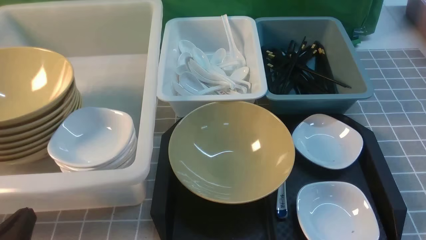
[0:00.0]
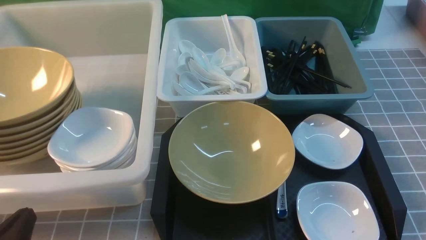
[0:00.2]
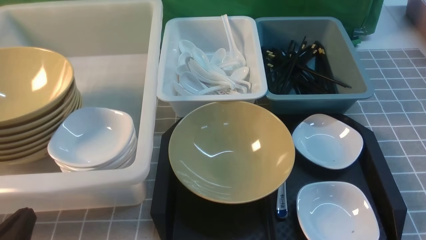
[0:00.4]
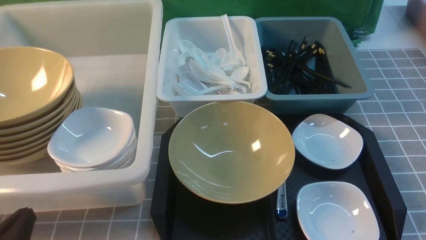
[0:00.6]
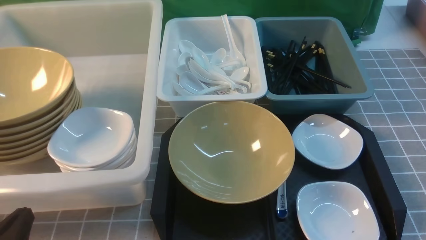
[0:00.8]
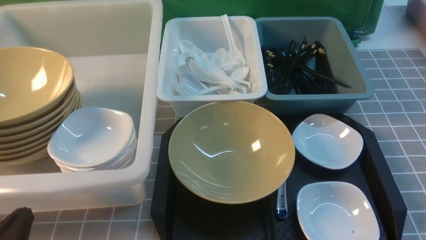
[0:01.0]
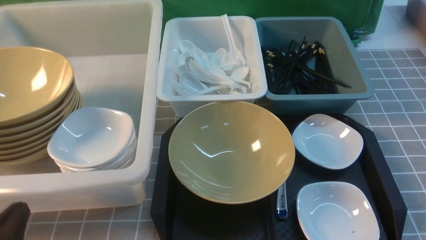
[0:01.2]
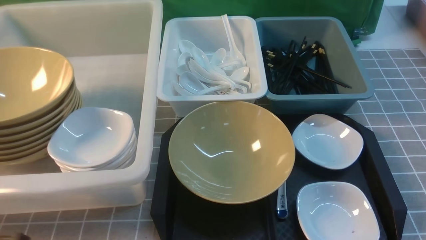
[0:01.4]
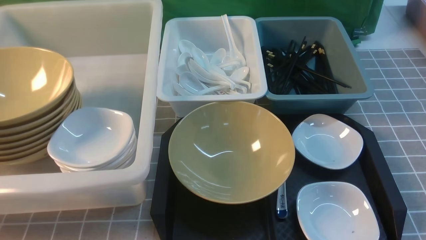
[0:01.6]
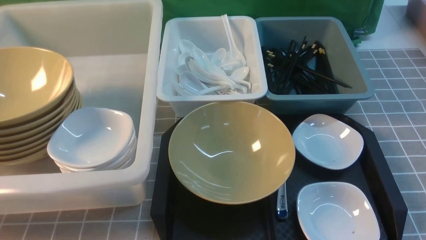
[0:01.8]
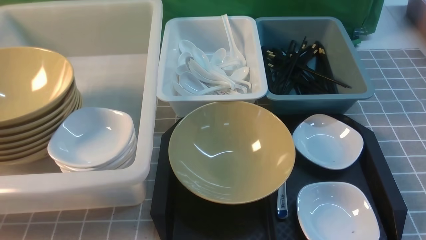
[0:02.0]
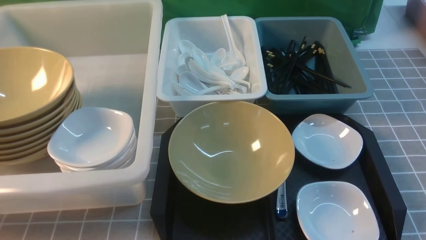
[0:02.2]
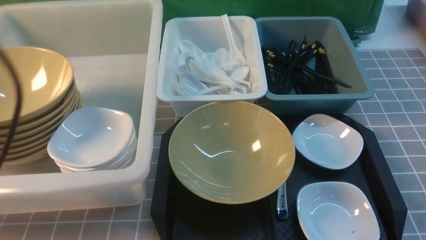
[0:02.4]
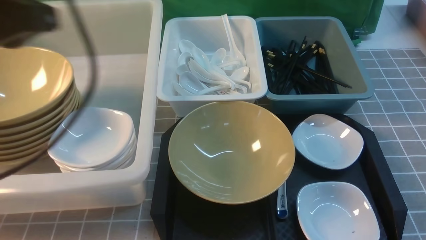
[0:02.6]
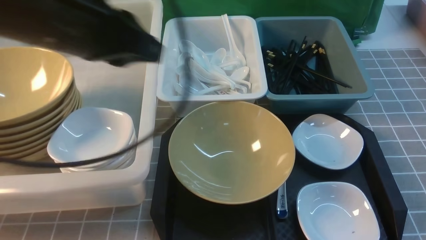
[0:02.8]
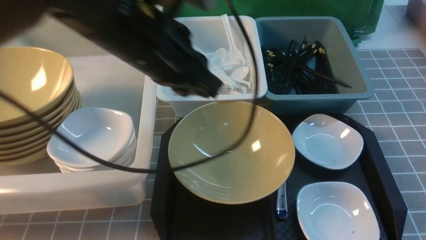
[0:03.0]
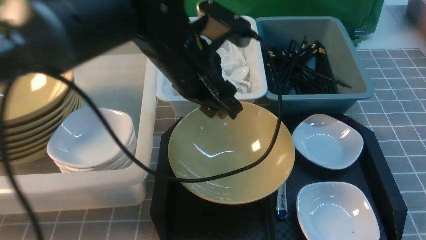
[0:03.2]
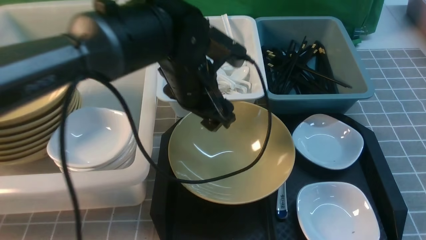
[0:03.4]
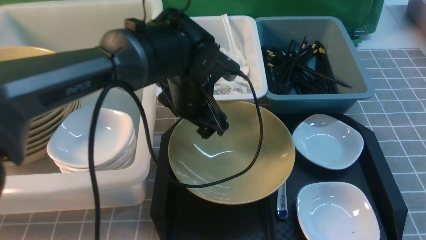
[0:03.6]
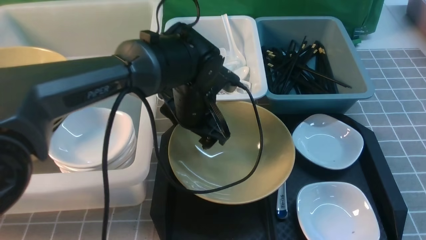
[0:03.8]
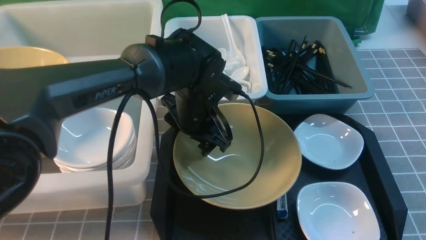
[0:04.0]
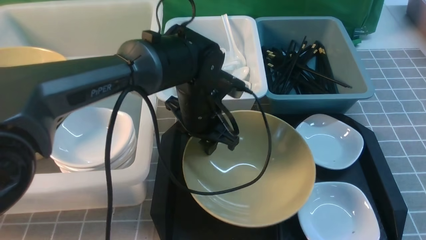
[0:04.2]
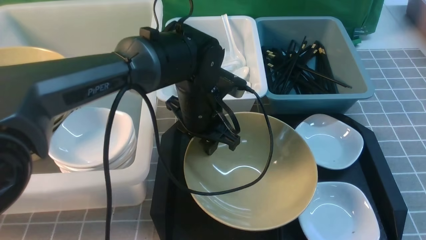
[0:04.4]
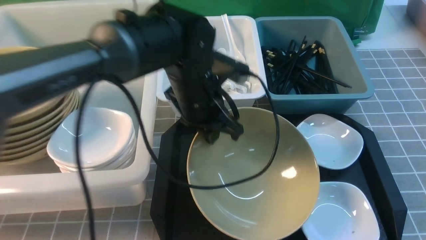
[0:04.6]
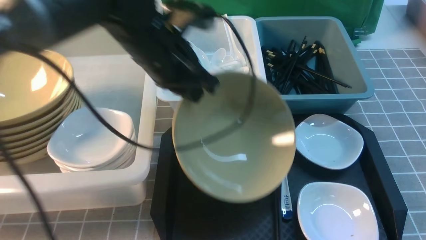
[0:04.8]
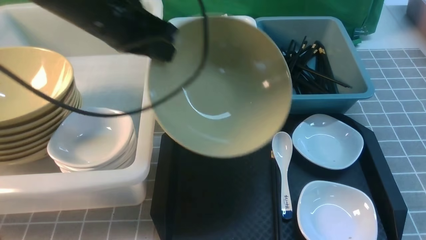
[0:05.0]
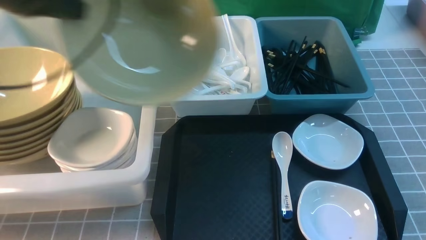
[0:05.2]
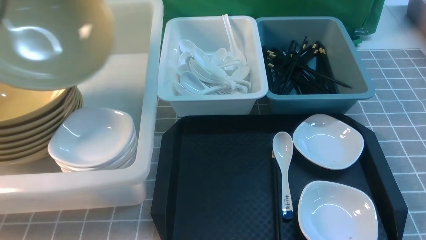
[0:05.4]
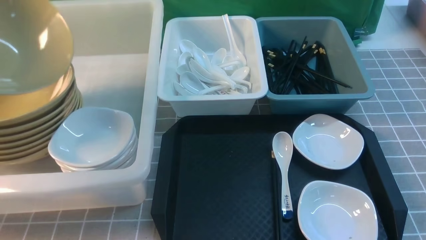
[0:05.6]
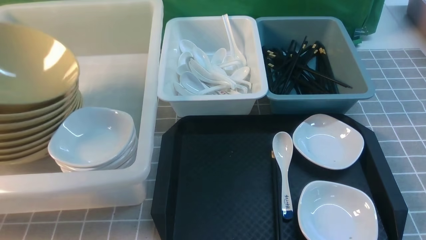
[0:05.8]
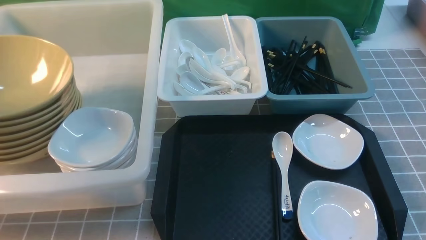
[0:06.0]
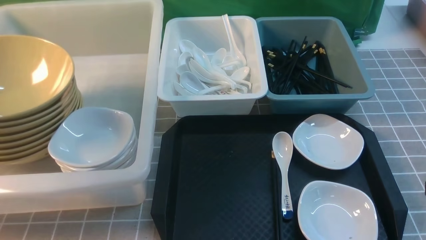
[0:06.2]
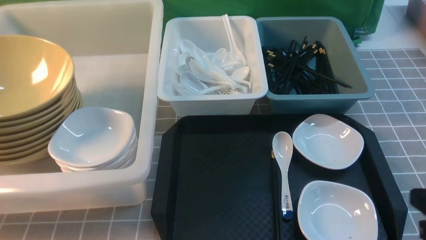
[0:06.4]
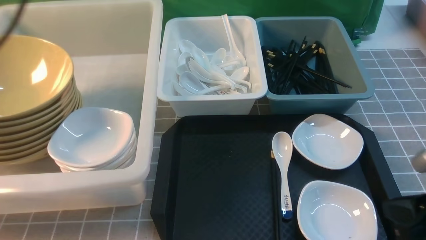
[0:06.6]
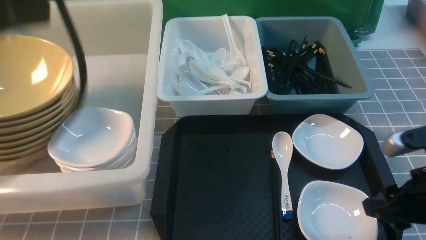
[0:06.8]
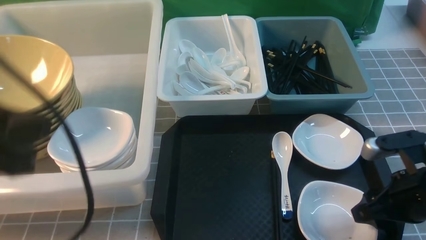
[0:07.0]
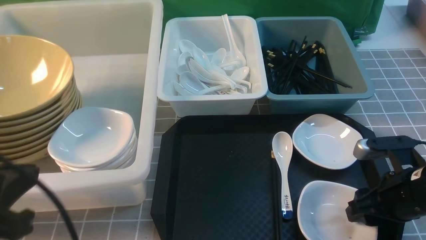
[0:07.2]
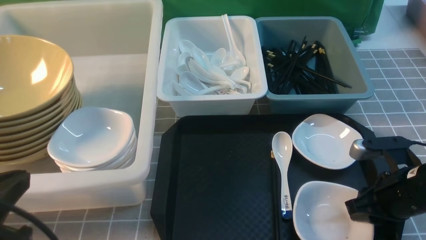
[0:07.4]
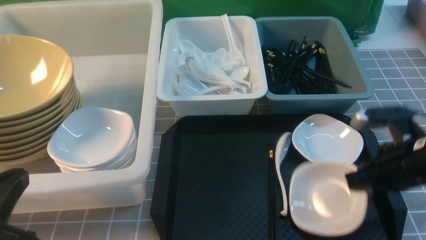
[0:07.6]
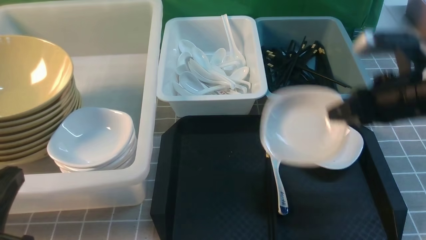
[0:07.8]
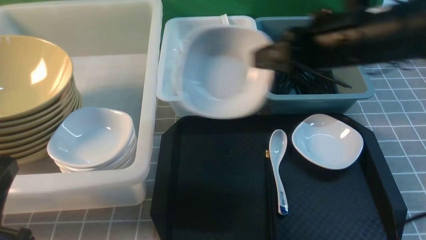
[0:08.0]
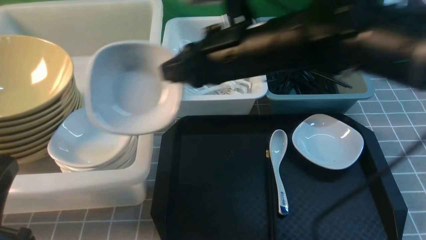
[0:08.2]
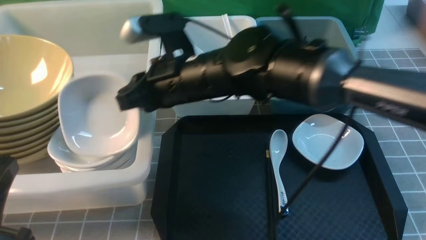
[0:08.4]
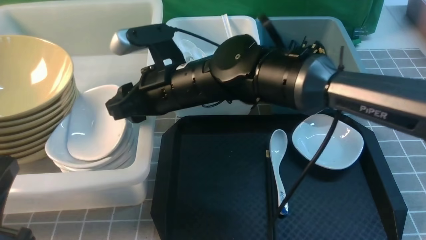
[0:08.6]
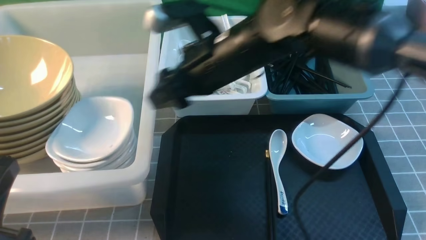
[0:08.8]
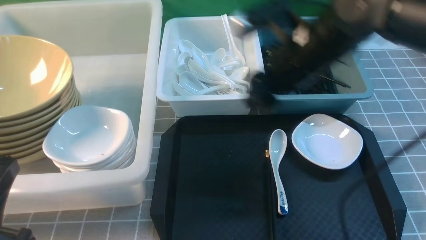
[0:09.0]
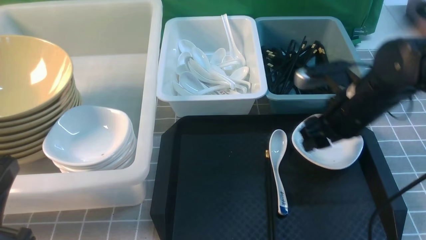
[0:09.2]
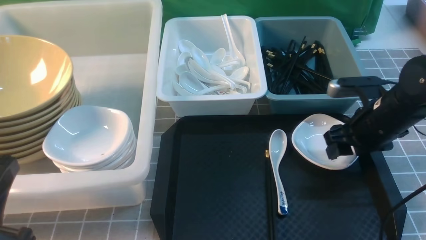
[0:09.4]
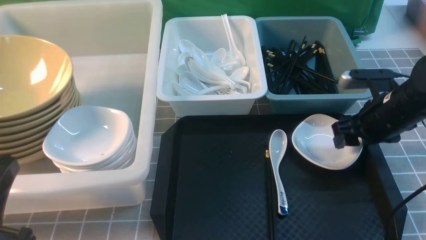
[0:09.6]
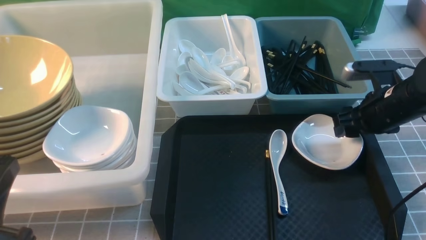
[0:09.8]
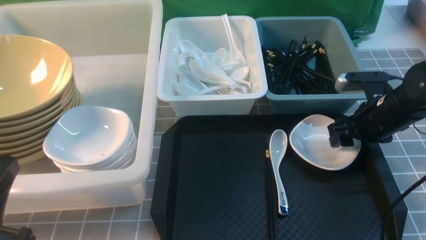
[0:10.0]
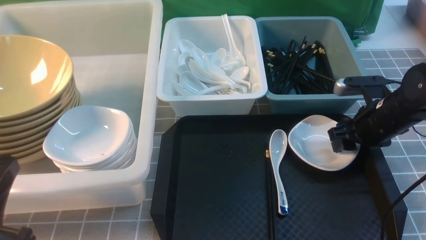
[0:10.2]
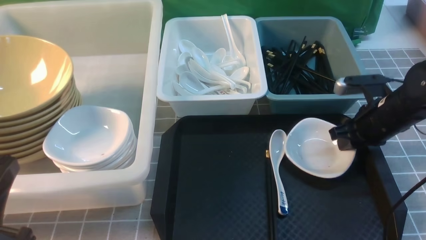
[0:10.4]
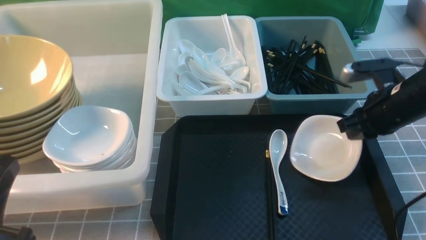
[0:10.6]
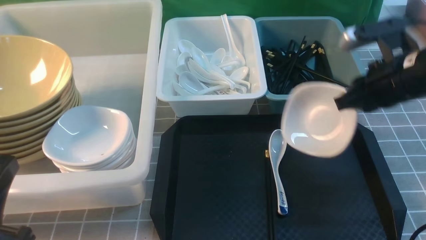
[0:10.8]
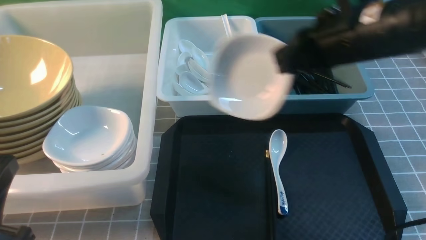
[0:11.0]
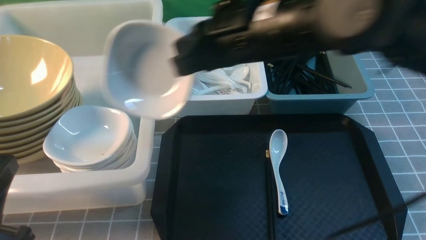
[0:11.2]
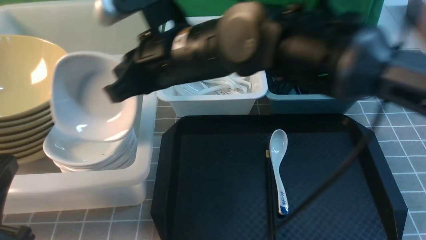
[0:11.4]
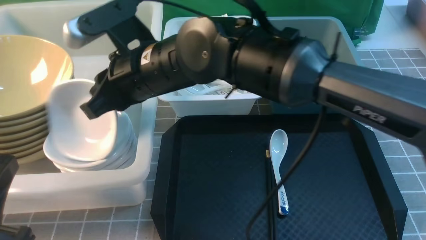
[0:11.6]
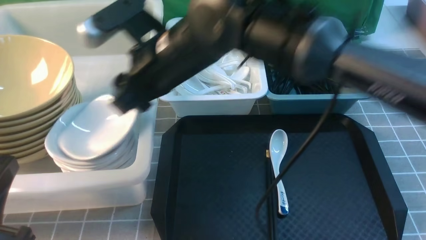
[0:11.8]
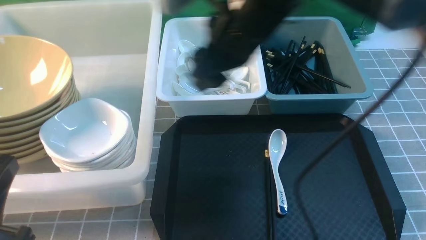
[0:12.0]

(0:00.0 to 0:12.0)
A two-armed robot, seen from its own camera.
Task of the whole recording: on grey table put chopsticks spoon bowls plates into blue grey white boxes.
Step, 0:00.0 - 0:04.6: use the left arm to grab the yellow noodle bowl on the left.
Step, 0:04.8 - 0:06.0: use the left arm to put the noodle bowl into the large storage box on the left.
Step, 0:06.2 - 0:07.8: use the right arm to grab the plate.
Step, 0:08.0 - 0:08.8: use the right arm to put the plate into the large storage box on the left.
Step, 0:09.0 - 0:10.6: use the right arm to grab the plate.
Step, 0:10.8 - 0:11.8: use the right arm to put the plate into the large storage box on the left.
0:01.6 - 0:03.0: The right gripper moves forward, roughly 5 cm, reaches some 10 cm upward, then returns, and closes its fingers, while the left gripper is displaced forward, upward and to the right by about 30 cm.
0:03.0 - 0:04.4: The left gripper moves downward, to the right and forward, some 20 cm, and opens, then closes again.
0:04.4 - 0:06.0: The left gripper shifts approximately 40 cm to the left, and closes and opens again.
0:06.0 - 0:07.6: The left gripper moves backward and to the right, roughly 30 cm, and closes up, while the right gripper goes roughly 15 cm forward and downward, and opens, then closes once more.
0:07.6 - 0:09.0: The right gripper travels to the left, forward and upward by roughly 25 cm, and opens its fingers.
0:09.0 - 0:10.4: The right gripper is displaced to the right and downward by approximately 25 cm, and closes its fingers.
0:10.4 - 0:12.0: The right gripper shifts some 30 cm to the left and upward, and closes and opens again.

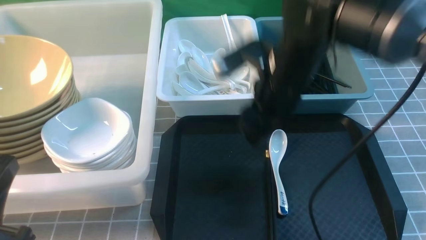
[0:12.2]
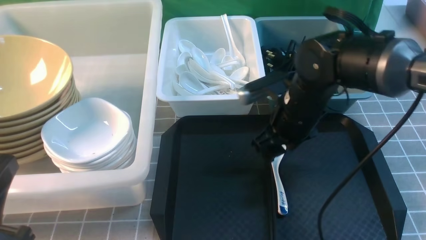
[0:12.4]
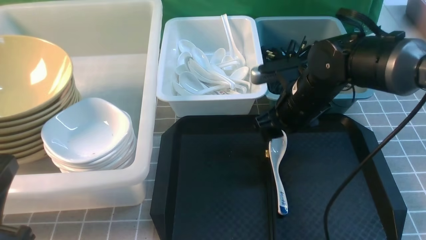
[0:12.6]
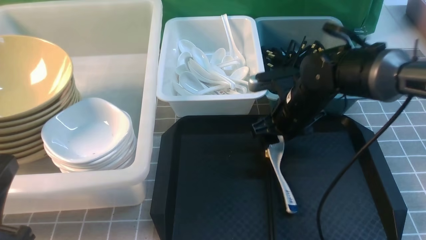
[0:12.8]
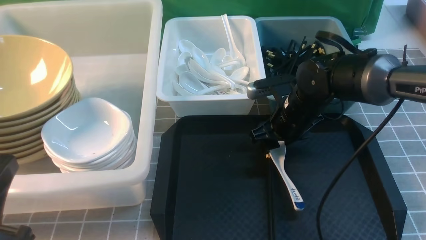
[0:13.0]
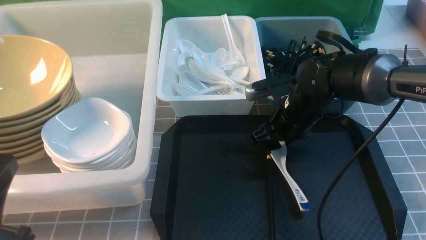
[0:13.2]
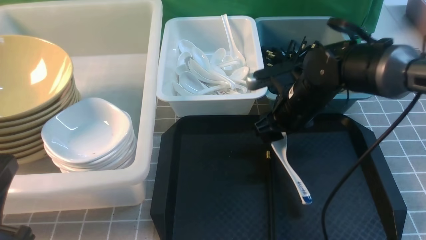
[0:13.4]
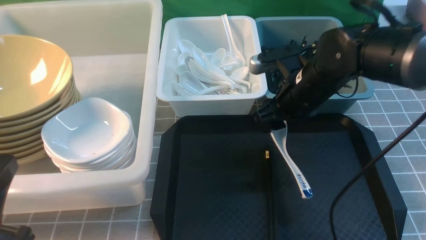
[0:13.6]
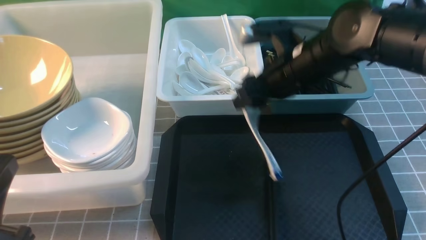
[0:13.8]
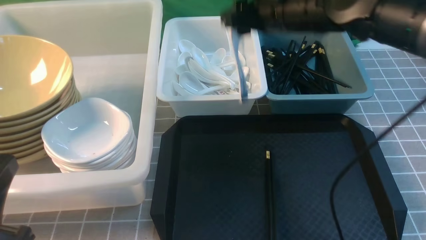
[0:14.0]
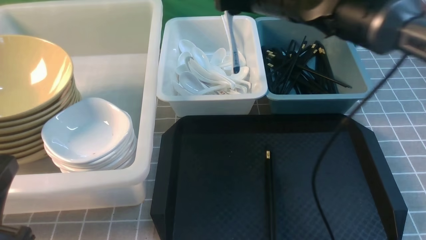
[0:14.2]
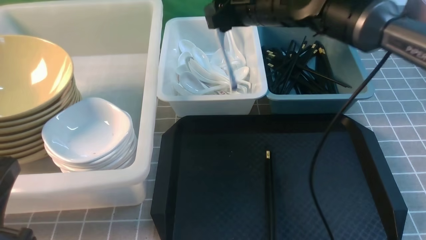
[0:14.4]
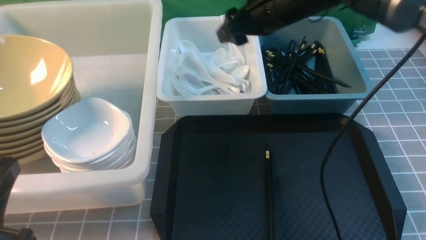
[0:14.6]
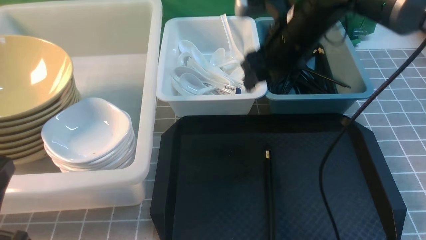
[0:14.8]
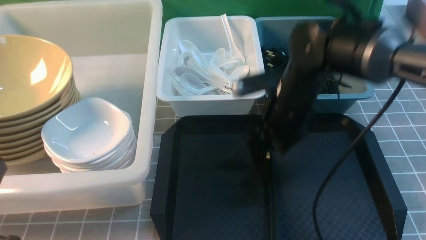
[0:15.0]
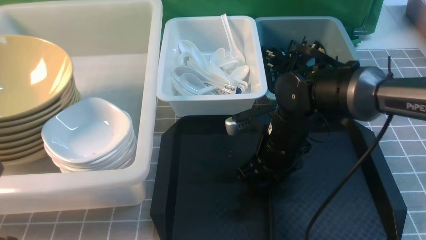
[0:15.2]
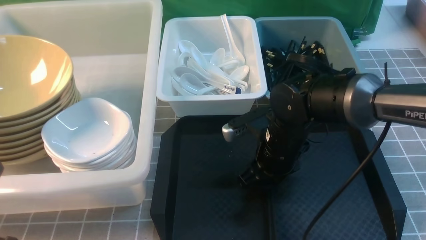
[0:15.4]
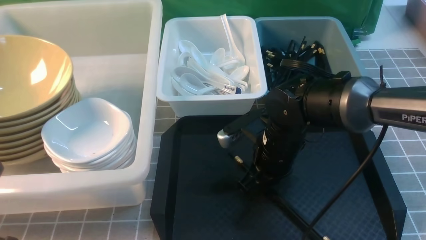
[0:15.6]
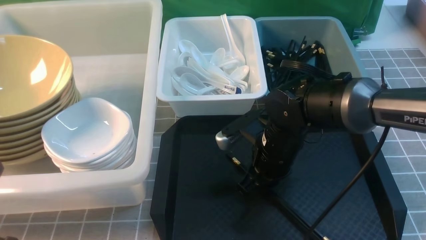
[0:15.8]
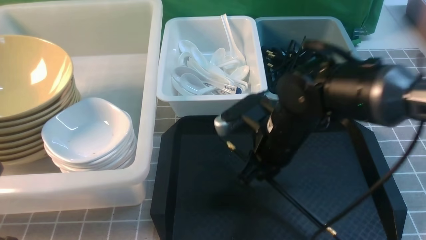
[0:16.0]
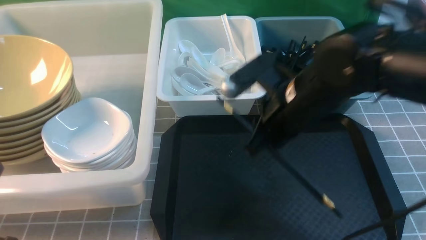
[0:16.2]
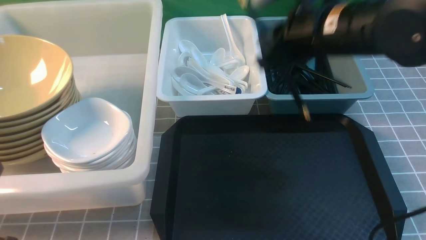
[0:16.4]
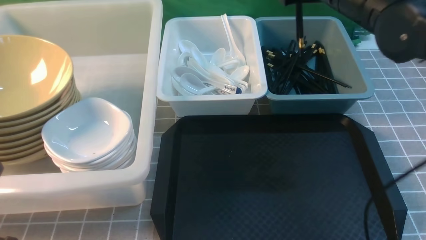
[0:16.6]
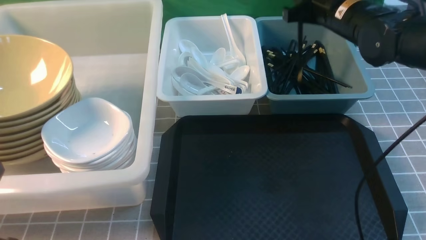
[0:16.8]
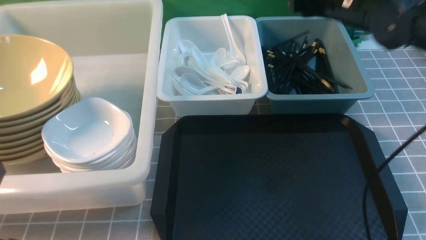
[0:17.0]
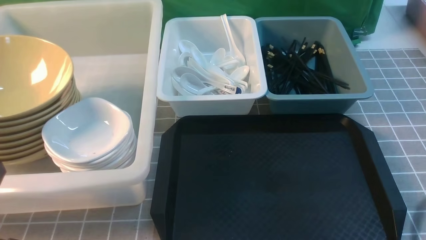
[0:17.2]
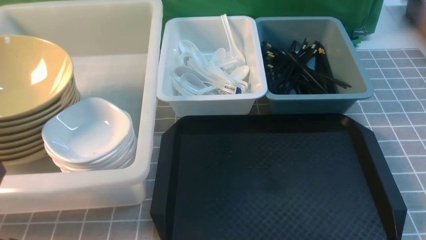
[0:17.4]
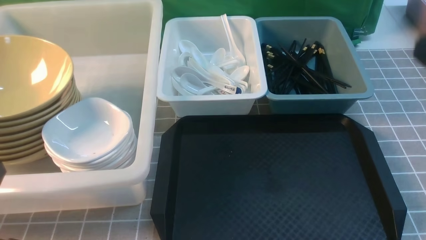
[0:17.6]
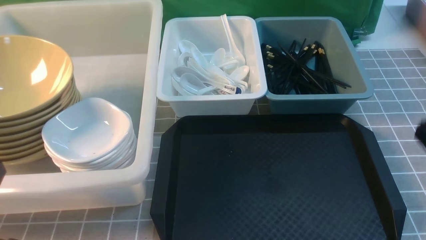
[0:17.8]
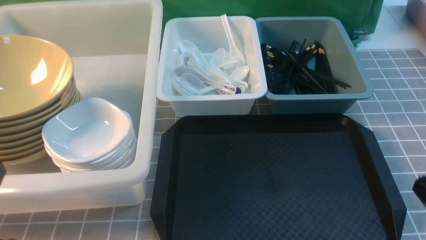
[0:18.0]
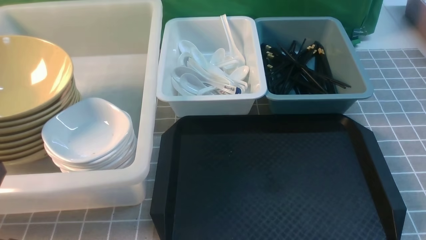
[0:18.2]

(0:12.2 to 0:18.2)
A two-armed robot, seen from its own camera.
Task of the whole recording: on grey table put chopsticks spoon bowls plates into blue grey white boxes.
Step, 0:12.2 - 0:13.6: use the right arm to grab the soup spoon in the middle.
Step, 0:13.8 - 0:14.4: use the right arm to put the soup spoon into the small storage box in the middle.
Step, 0:14.6 - 0:16.2: use the right arm to grab a chopstick.
Step, 0:16.4 - 0:17.0: use the right arm to put a chopstick into the small storage box on the right.
0:12.2 - 0:13.8: The right gripper goes approximately 5 cm to the right.
0:13.8 - 0:15.2: The right gripper heads downward, covering about 5 cm.
0:15.2 - 0:16.6: The right gripper goes about 15 cm upward, and closes its fingers.
0:16.6 - 0:18.2: The right gripper travels backward, to the right and downward by roughly 35 cm.
